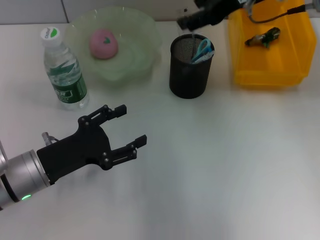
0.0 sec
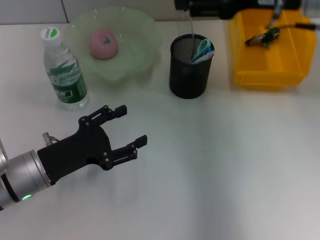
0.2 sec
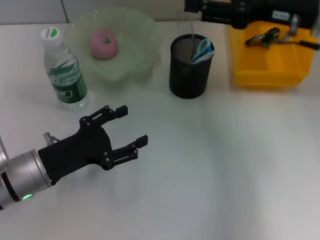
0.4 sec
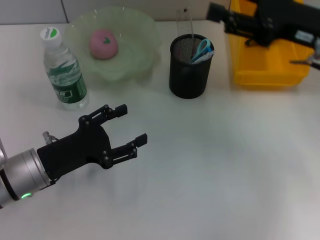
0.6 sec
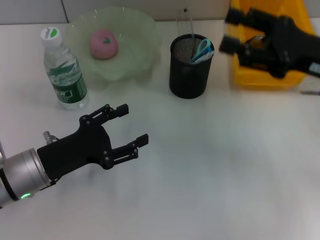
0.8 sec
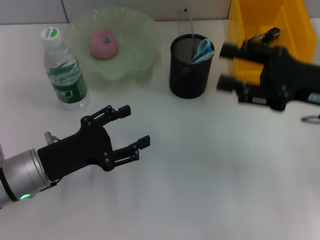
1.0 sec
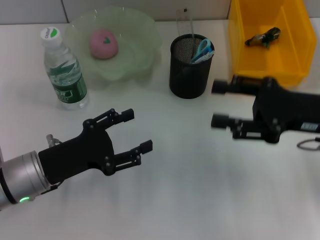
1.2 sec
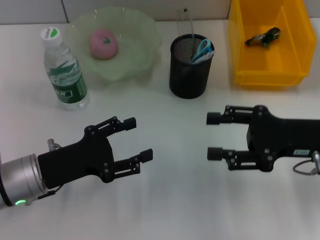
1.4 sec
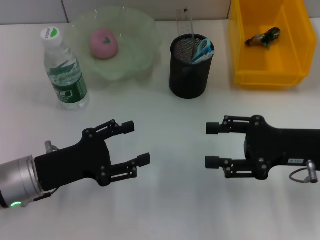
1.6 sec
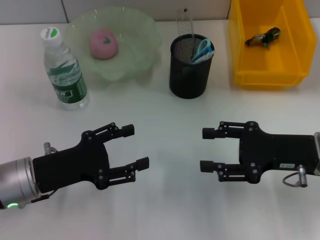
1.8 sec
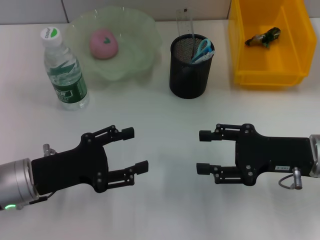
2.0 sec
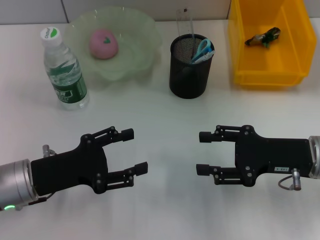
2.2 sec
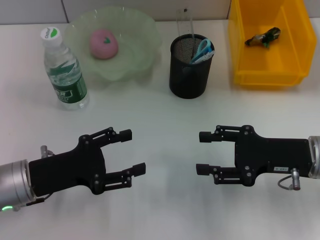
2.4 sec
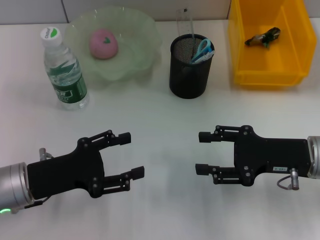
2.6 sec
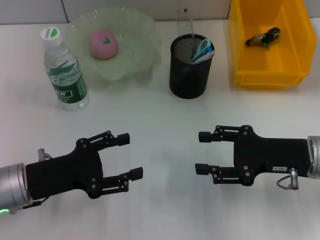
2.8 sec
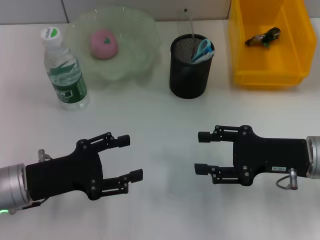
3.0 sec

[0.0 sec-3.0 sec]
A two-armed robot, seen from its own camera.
0.0 sec to 1.6 sec: The right gripper moves downward, backward and to the right, some 25 cm.
1.6 sec to 3.0 sec: The grippers make only small movements.
